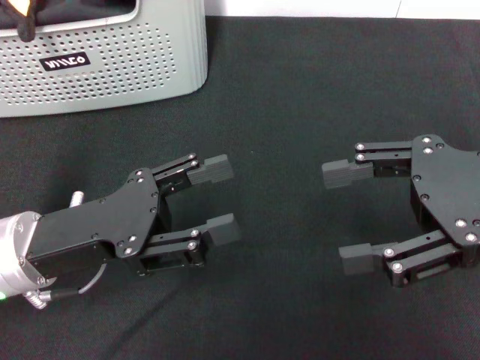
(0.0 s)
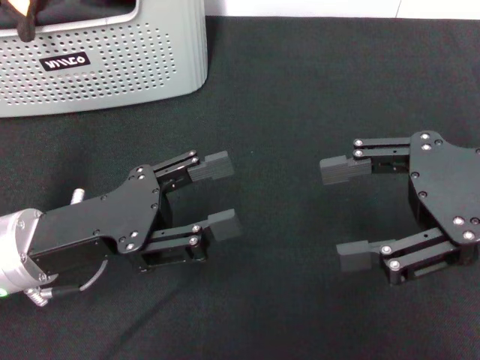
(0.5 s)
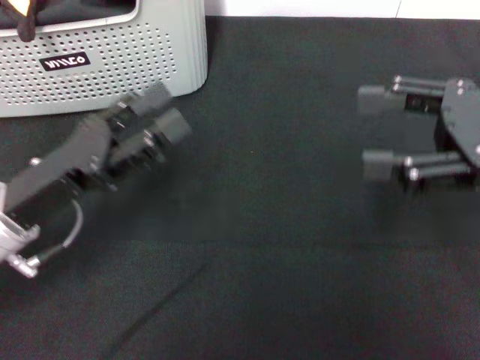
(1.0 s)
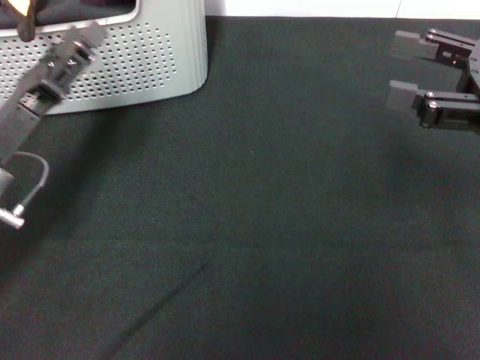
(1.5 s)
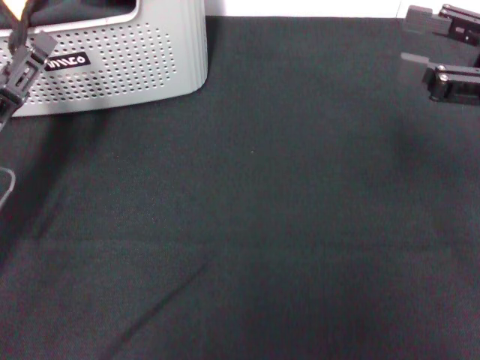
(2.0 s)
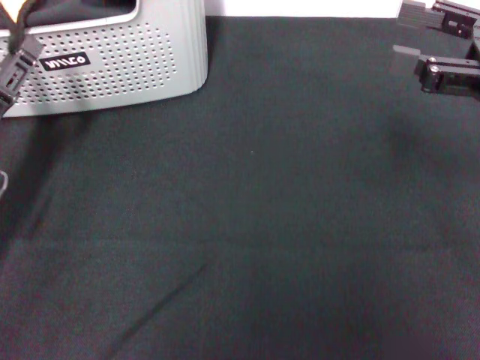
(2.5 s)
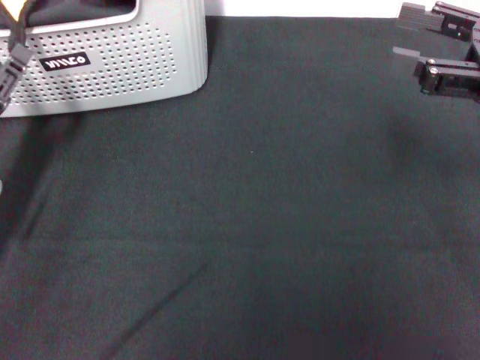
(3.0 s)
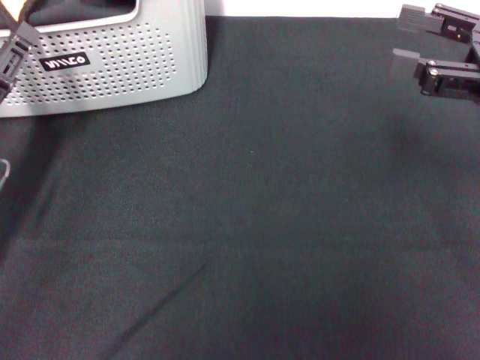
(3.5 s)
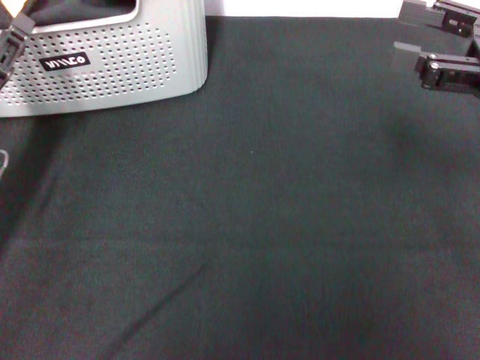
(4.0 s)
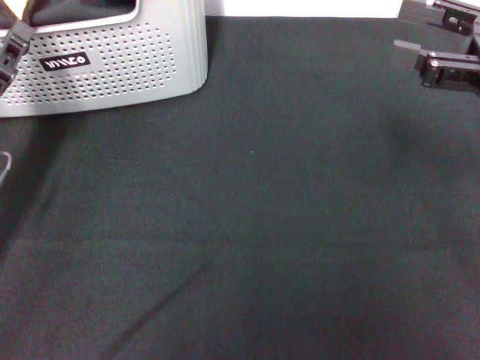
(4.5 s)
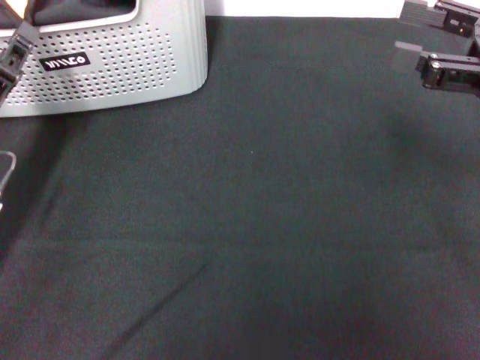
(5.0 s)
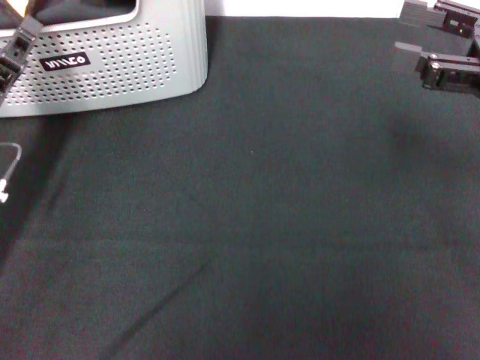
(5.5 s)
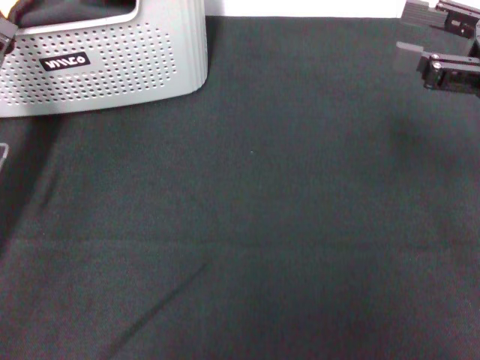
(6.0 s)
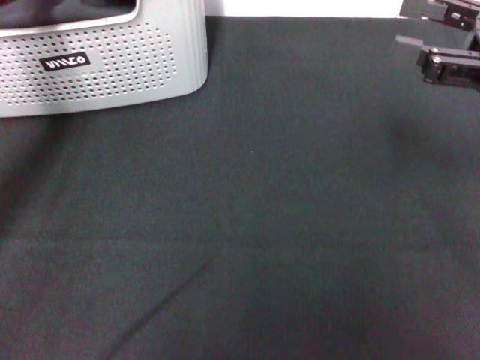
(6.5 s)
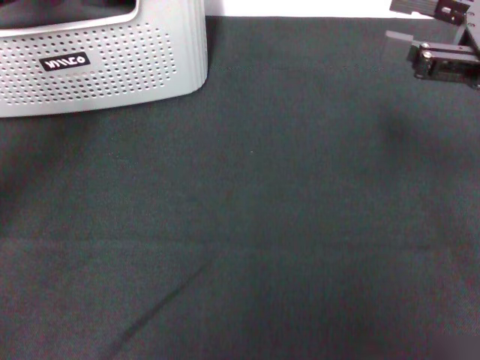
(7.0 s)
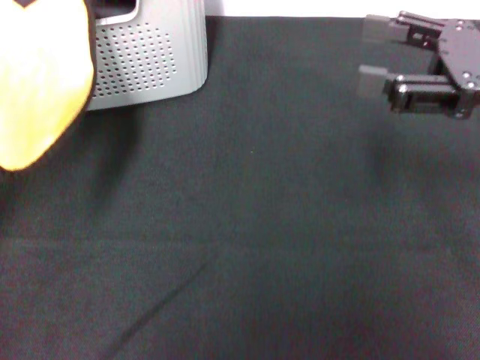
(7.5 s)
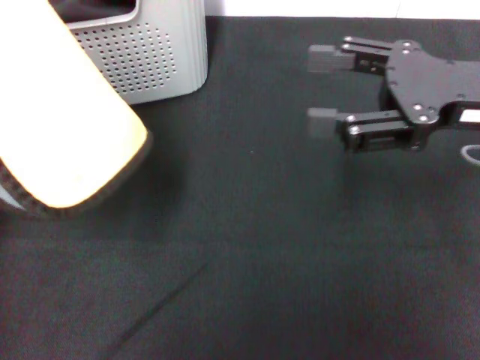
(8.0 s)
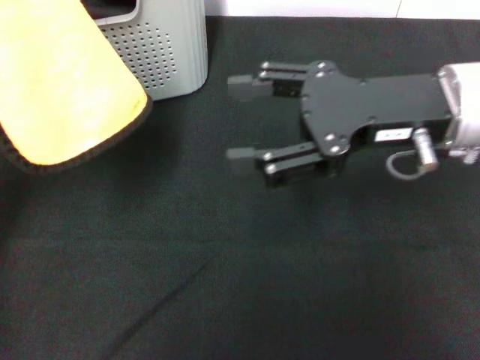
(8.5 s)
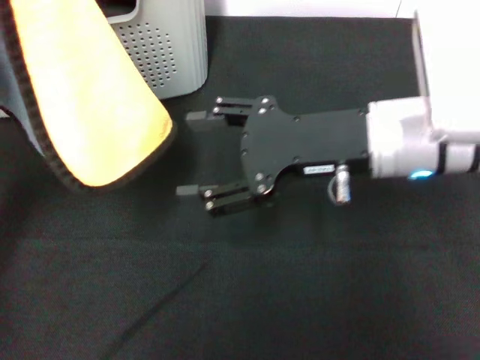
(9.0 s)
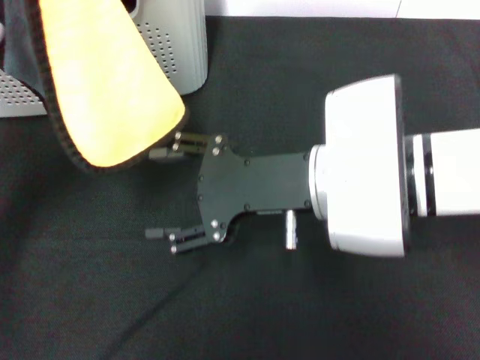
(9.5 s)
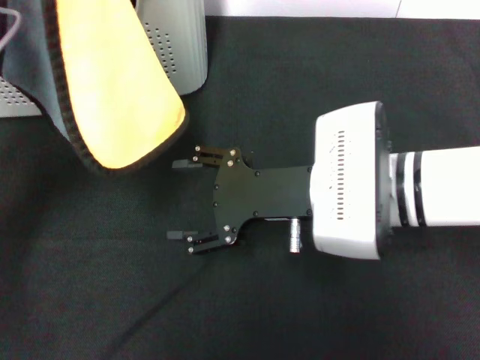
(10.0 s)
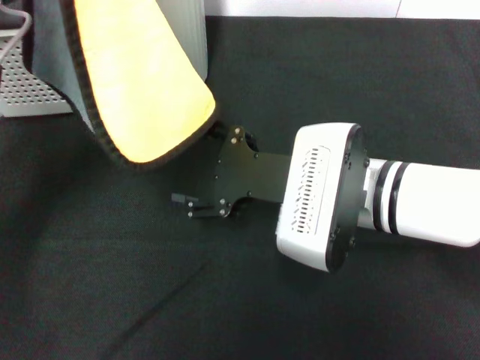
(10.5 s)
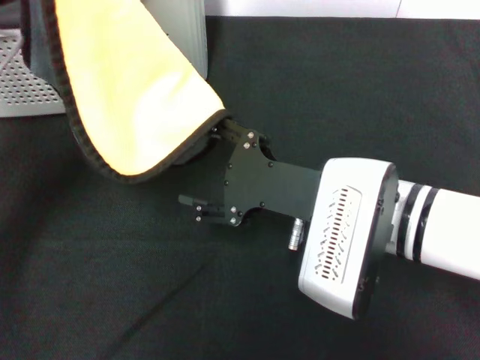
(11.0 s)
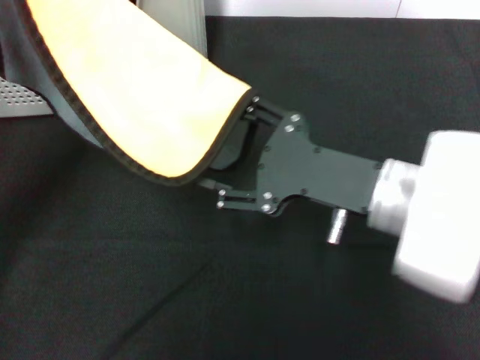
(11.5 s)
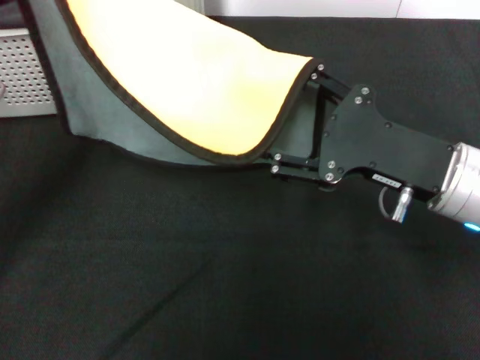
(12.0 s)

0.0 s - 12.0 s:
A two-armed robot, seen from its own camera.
Task of the whole recording: pick up the towel from the storage box and lay it flat on the black tablecloth.
Step, 0.0 s - 6.0 s: Pick up a towel with the left gripper.
0.0 s - 2.0 s: The left gripper travels to the left by approximately 10 cm, while the right gripper shifts about 5 cm to the right.
2.0 s - 4.0 s: The grippers make only small movements.
4.0 s - 6.0 s: The left gripper closes.
6.0 s - 8.0 s: The right gripper heads to the left, covering some 5 cm. Meanwhile the left gripper travels upward by about 15 cm.
8.0 s - 10.0 s: The left gripper ends up about 5 cm from where it was. The right gripper heads to the left and downward, covering roughly 15 cm.
10.0 s - 12.0 s: The left gripper ends up roughly 5 cm from where it was, while the right gripper moves to the right, approximately 10 cm.

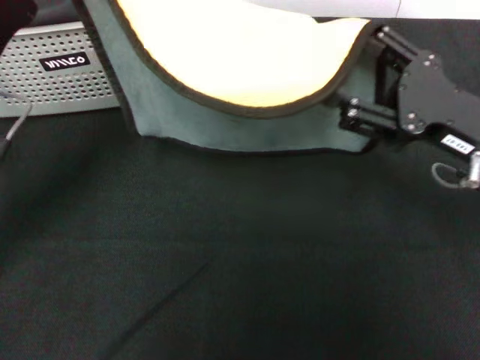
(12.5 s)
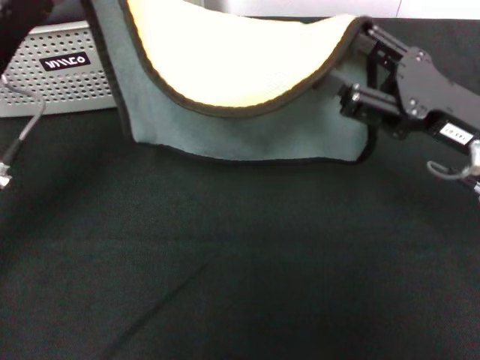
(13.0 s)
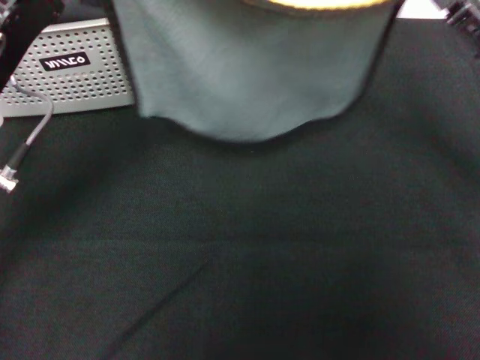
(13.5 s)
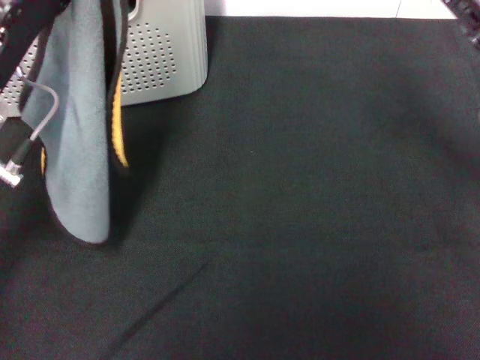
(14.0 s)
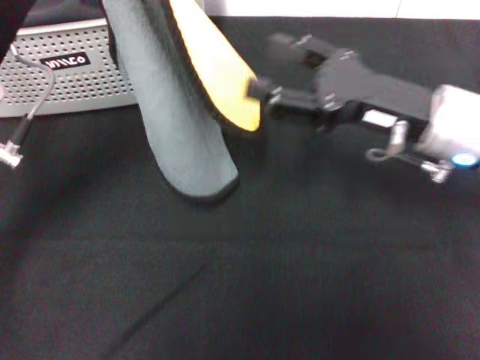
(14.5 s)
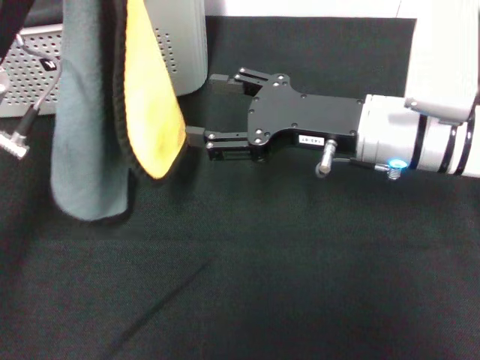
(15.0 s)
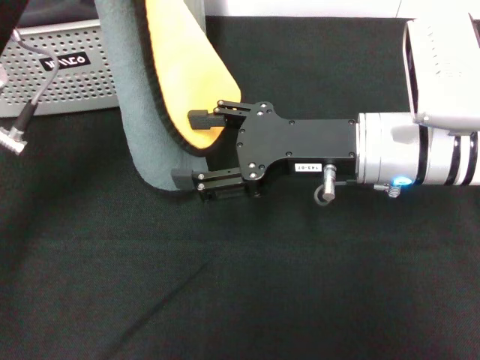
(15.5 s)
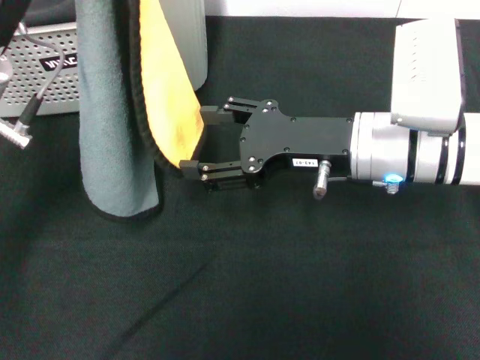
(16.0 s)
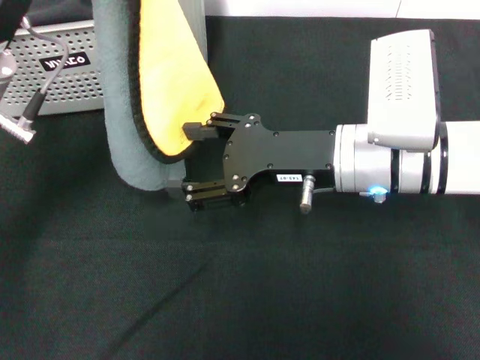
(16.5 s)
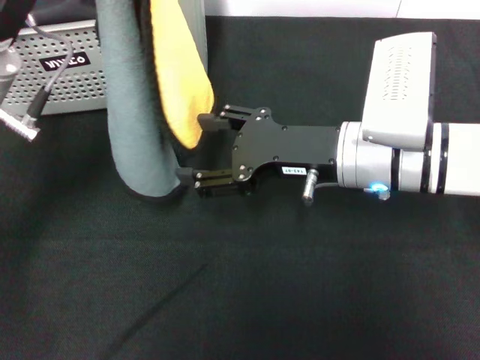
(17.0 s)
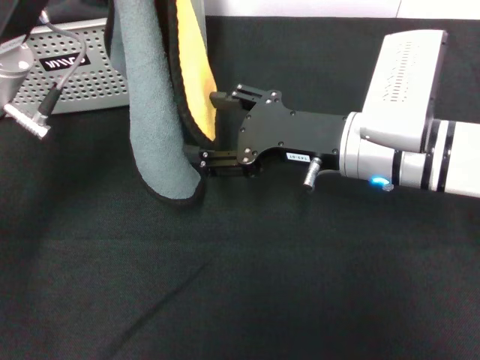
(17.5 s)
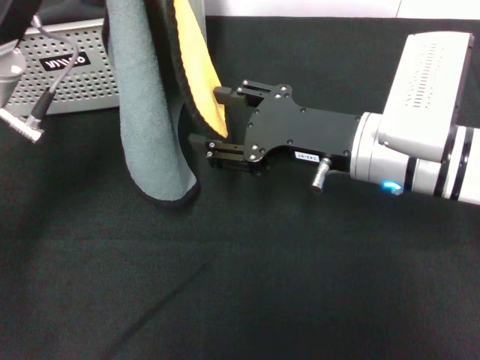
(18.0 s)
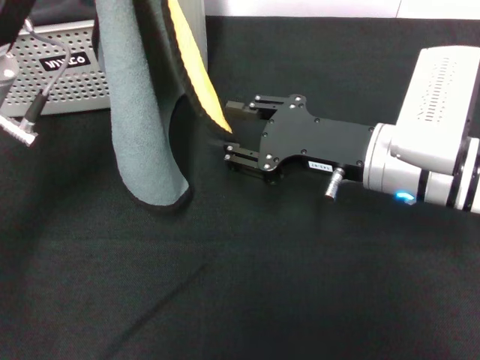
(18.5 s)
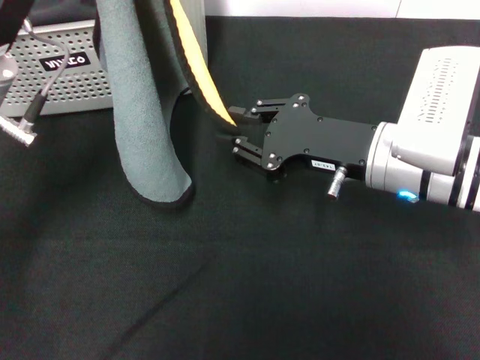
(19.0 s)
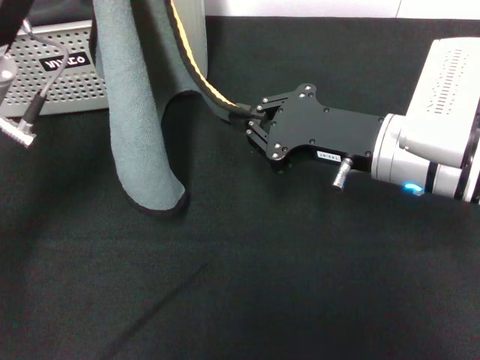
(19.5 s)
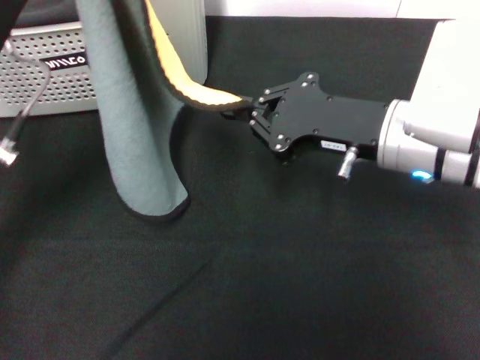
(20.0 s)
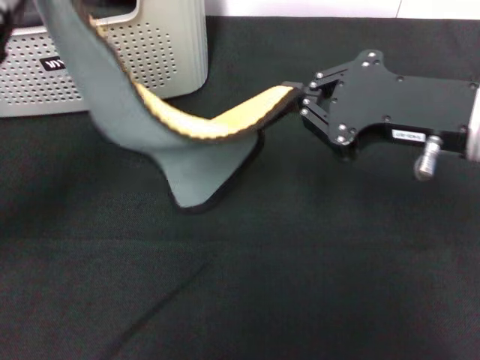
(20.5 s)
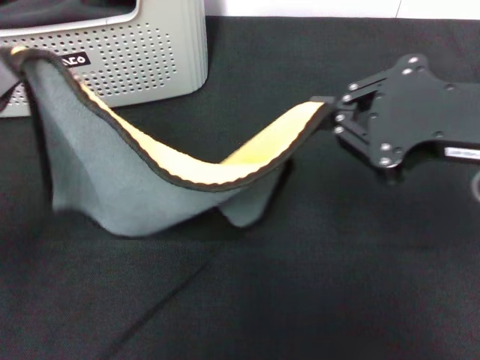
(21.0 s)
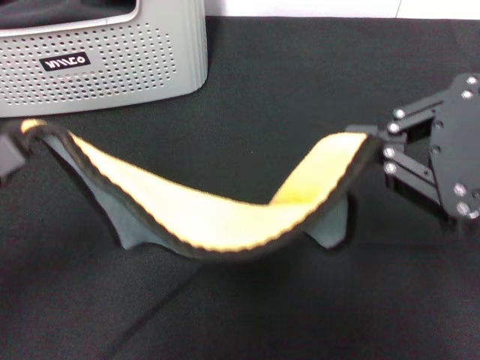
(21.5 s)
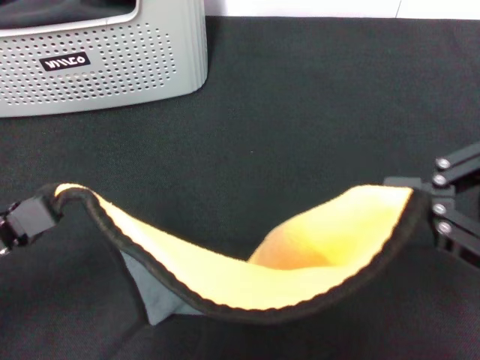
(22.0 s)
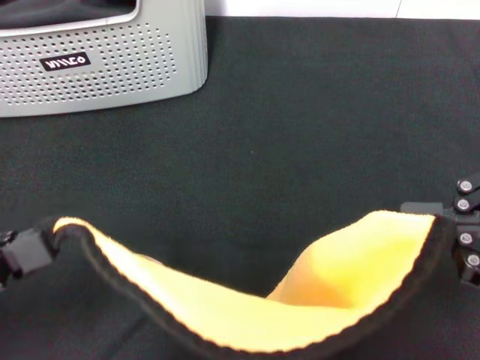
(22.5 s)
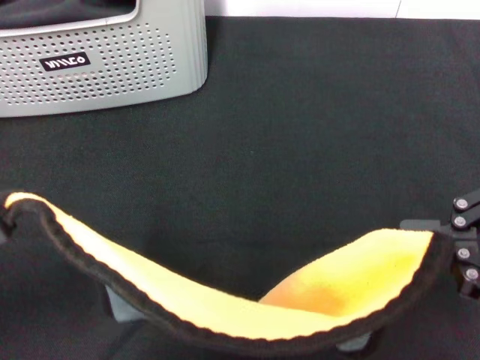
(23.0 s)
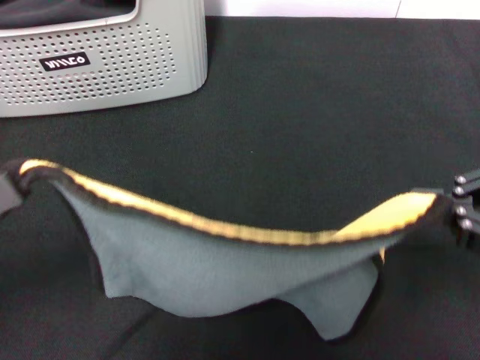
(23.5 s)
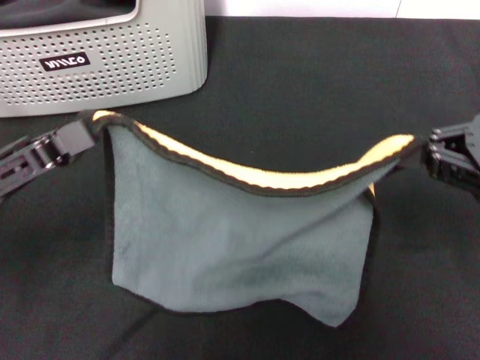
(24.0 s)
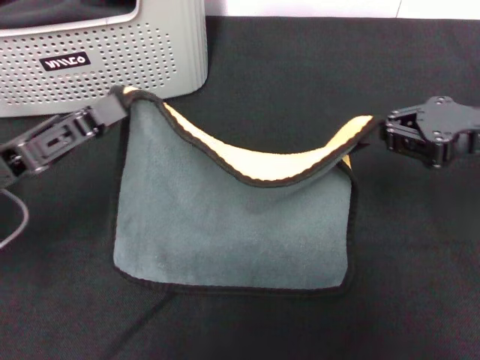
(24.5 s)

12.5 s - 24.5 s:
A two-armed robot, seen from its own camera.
Task of the whole recording: pick up the towel from the storage box and lay it flat on the black tablecloth.
Step, 12.5 s - 19.5 s: Spread the towel flat with the left gripper.
12.5 s - 14.5 s: The right gripper shifts by roughly 5 cm.
14.5 s - 16.5 s: The right gripper shifts some 10 cm to the left.
18.5 s - 20.5 s: The left gripper heads to the left and backward, covering about 10 cm. The right gripper heads upward and to the right, covering about 10 cm, and closes.
20.5 s - 22.5 s: The left gripper travels backward by some 10 cm; the right gripper goes roughly 15 cm backward, to the right and upward.
22.5 s - 24.5 s: The right gripper is displaced forward and downward by approximately 20 cm; the left gripper moves forward, about 10 cm.

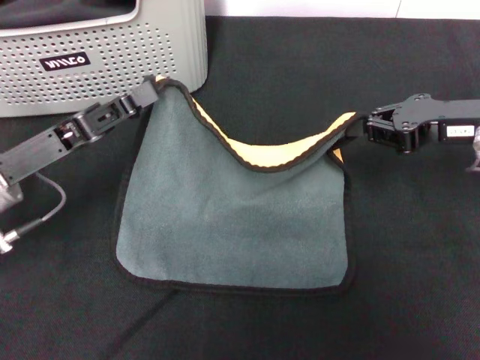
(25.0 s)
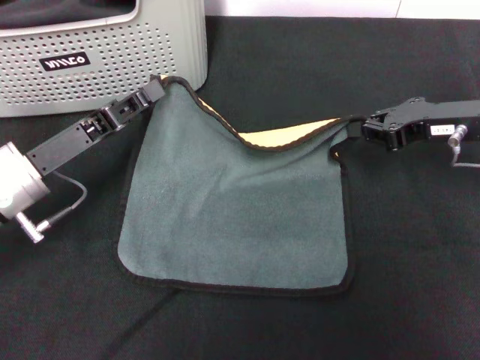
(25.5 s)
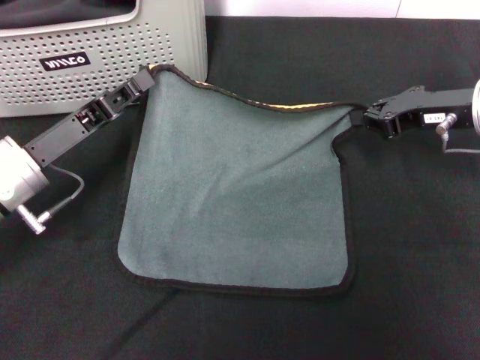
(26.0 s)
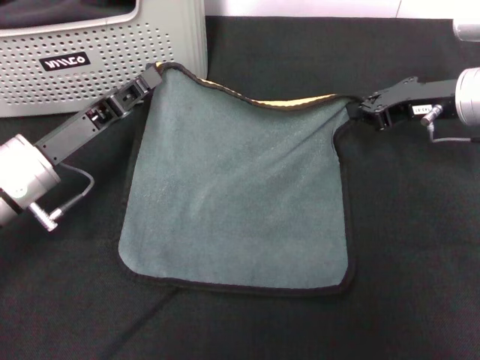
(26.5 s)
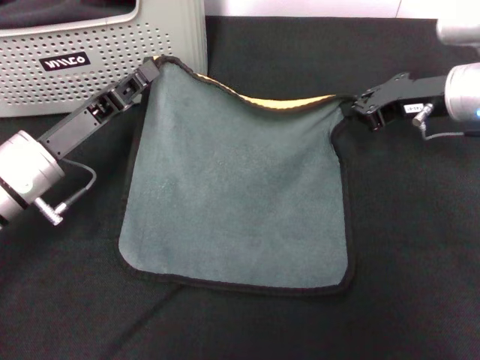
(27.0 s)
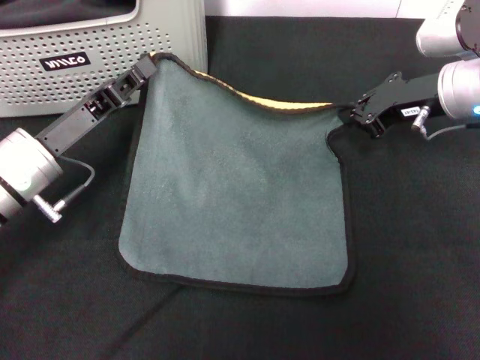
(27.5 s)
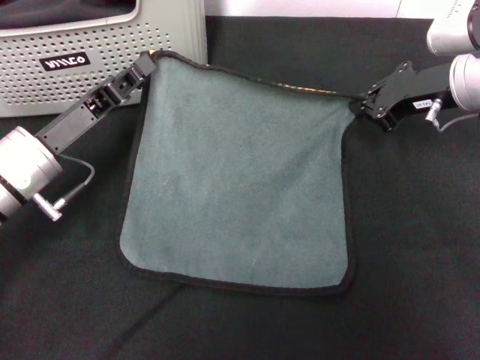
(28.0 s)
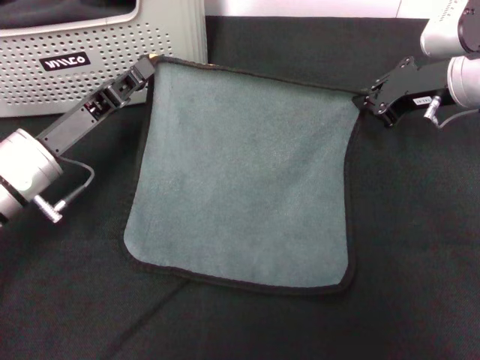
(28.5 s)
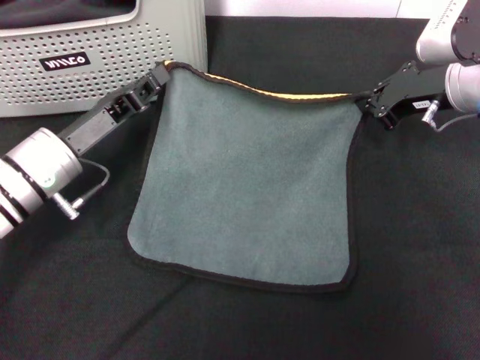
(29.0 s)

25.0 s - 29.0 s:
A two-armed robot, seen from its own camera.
Task of the whole recording: pick up the towel from the storage box and lay it flat on the black tablecloth.
25.0 s - 27.0 s: The right gripper moves forward, roughly 5 cm.
27.0 s - 29.0 s: The grippers make only small movements.
